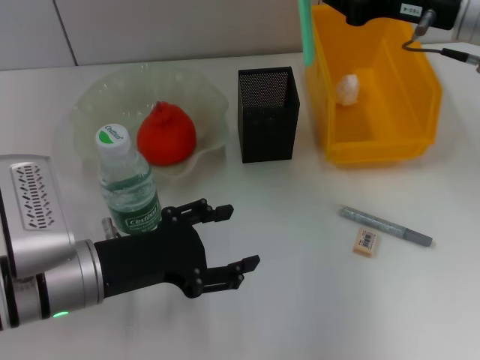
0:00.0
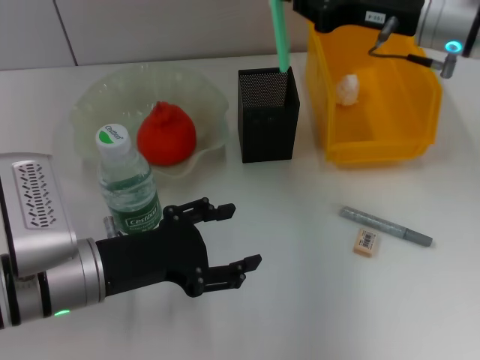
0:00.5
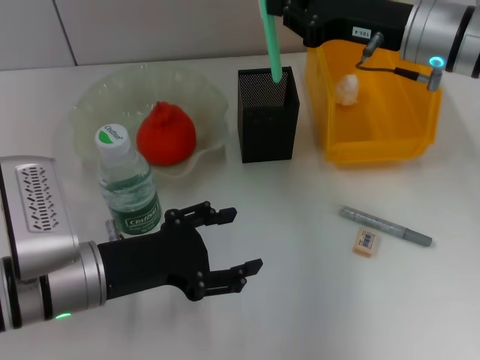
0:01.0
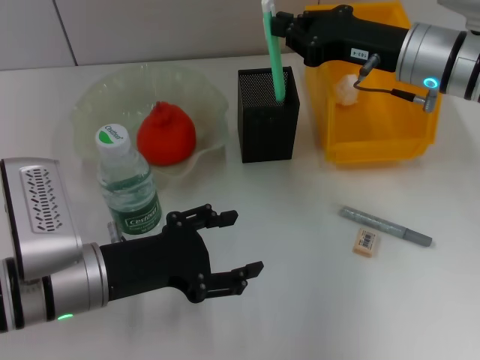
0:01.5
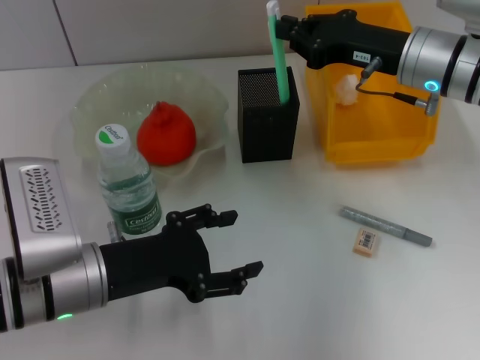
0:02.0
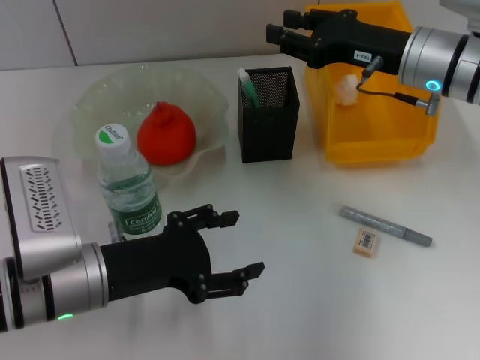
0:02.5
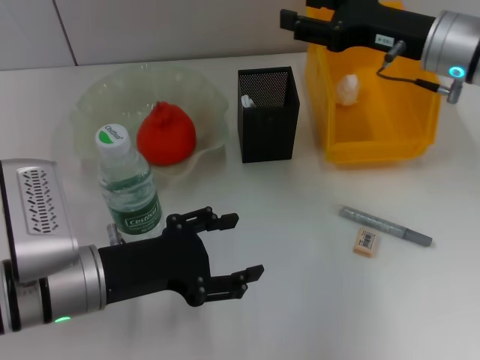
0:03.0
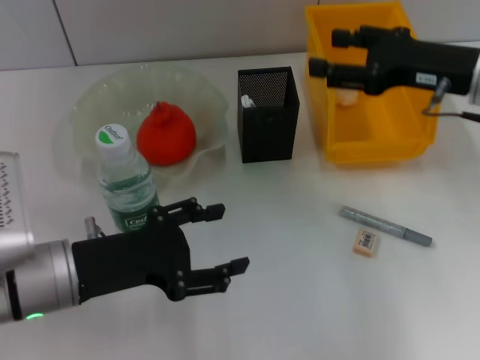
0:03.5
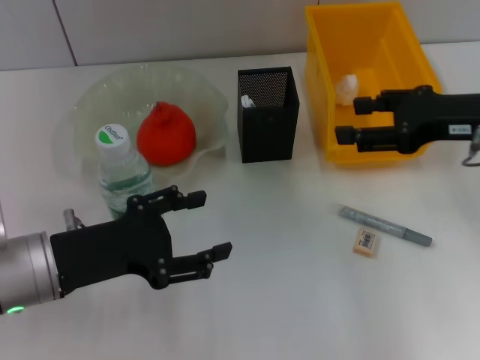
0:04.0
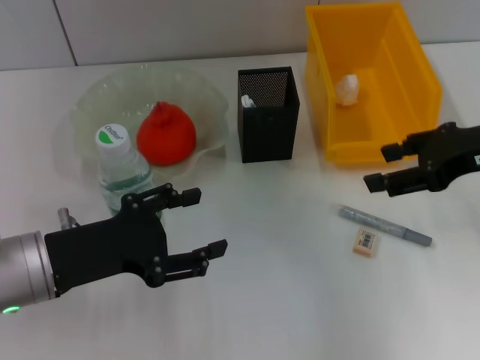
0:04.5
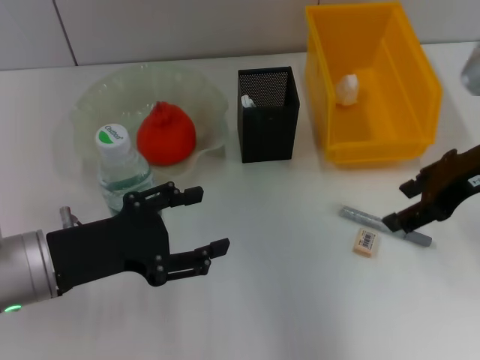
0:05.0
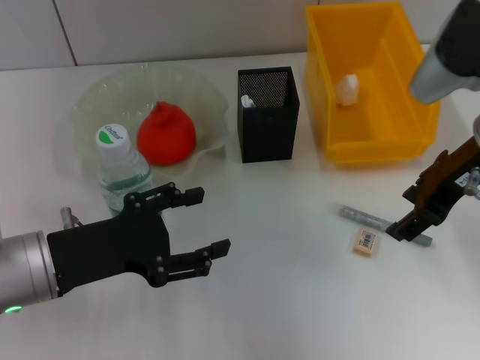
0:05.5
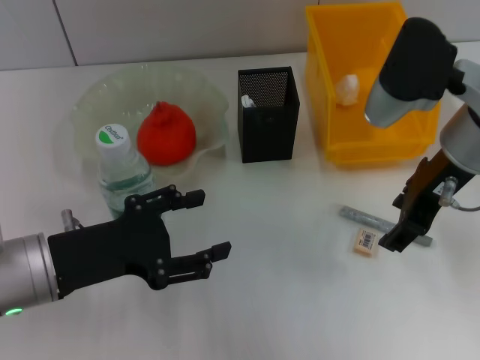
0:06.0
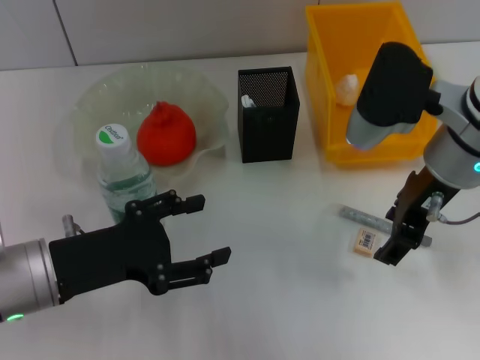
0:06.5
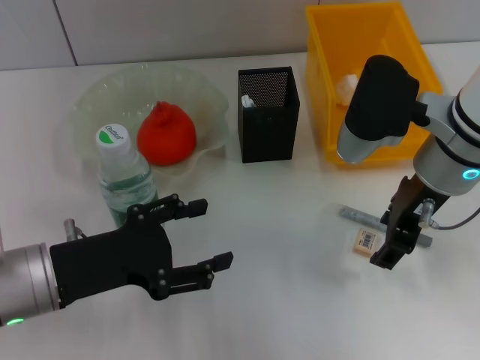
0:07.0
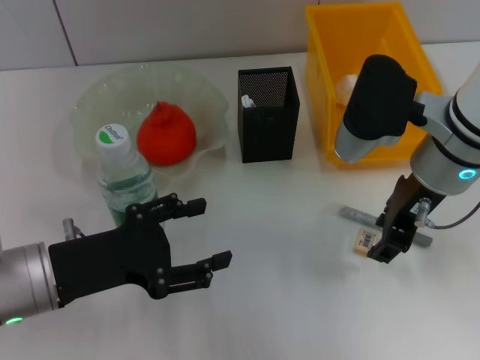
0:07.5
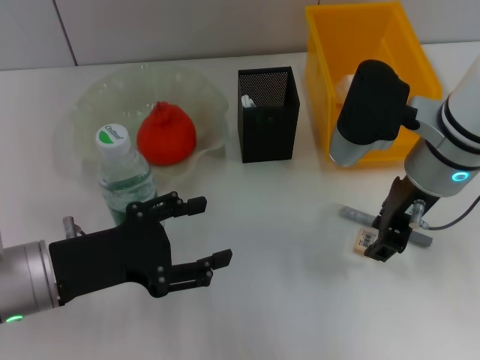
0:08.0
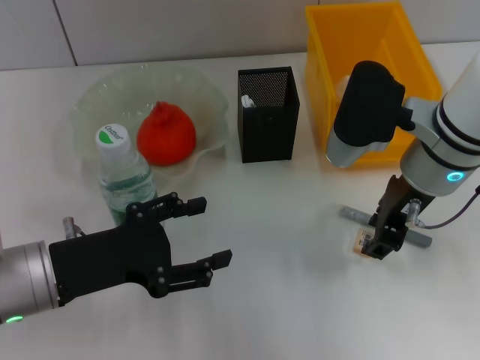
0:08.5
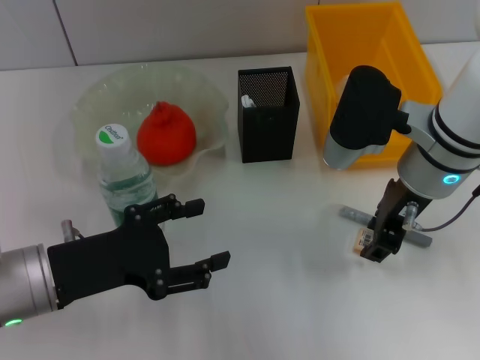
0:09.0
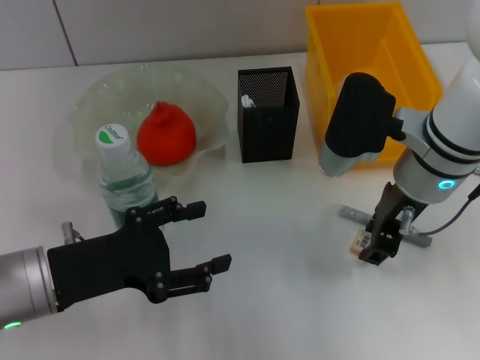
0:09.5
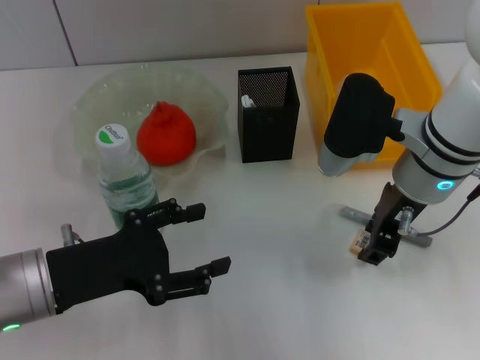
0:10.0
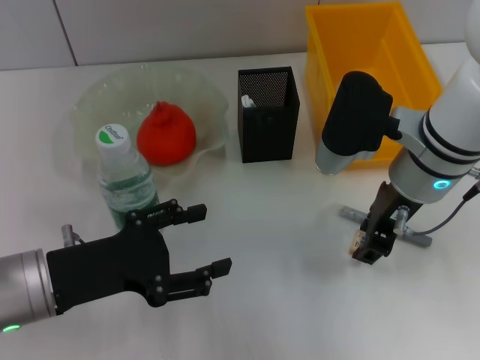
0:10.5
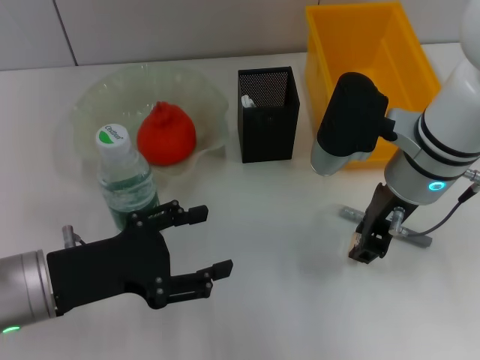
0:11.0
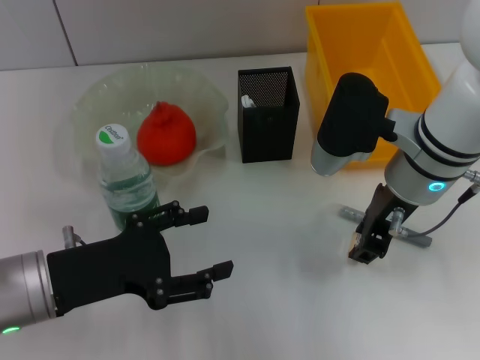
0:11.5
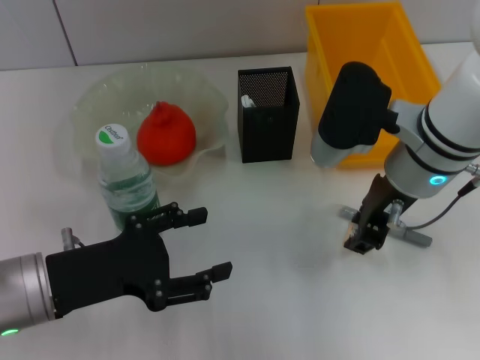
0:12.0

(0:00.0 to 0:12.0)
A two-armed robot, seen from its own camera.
Step, 0:00.0 - 0:02.5: Place the blue utility knife into the pen holder with the right hand.
Step, 0:03.0 - 0:11.0: Grab the eraser with the right hand.
0:00.0 - 0:02.0: The right gripper travels downward by about 5 cm.
0:02.0 - 0:04.0: The right gripper heads backward and to the right, covering about 10 cm, and opens.
0:04.0 - 0:06.0: The right gripper is displaced to the left by approximately 10 cm.
0:06.0 - 0:10.0: The grippers make only small movements.
0:10.0 - 0:12.0: Neither gripper changes place.

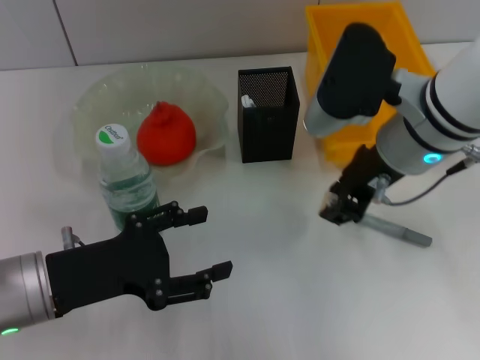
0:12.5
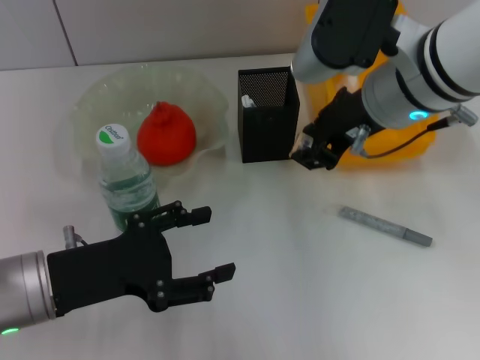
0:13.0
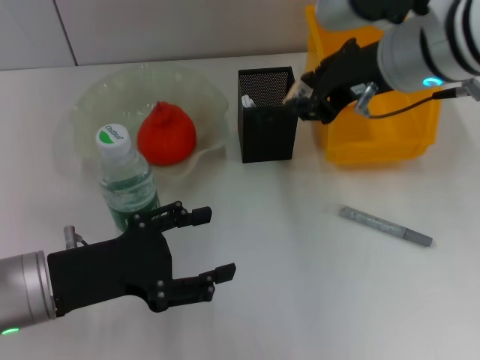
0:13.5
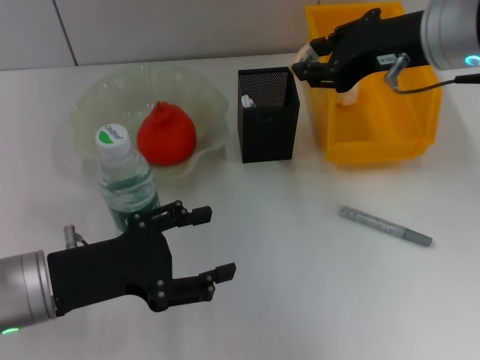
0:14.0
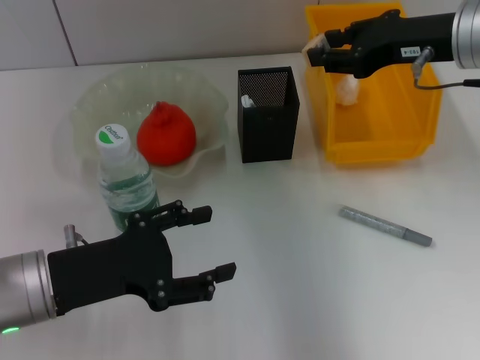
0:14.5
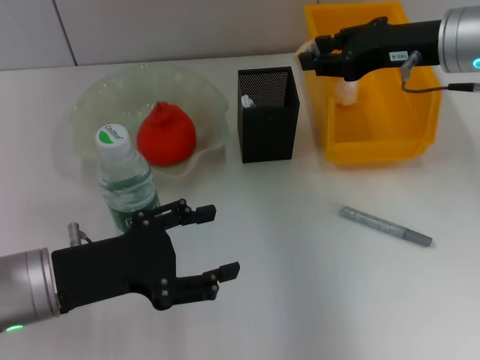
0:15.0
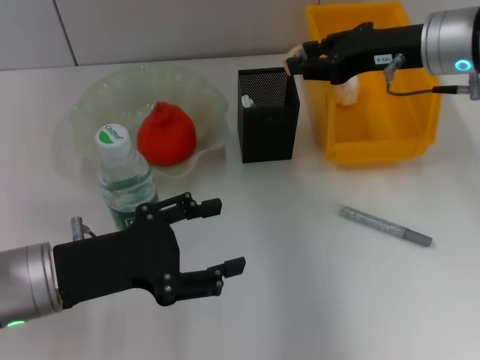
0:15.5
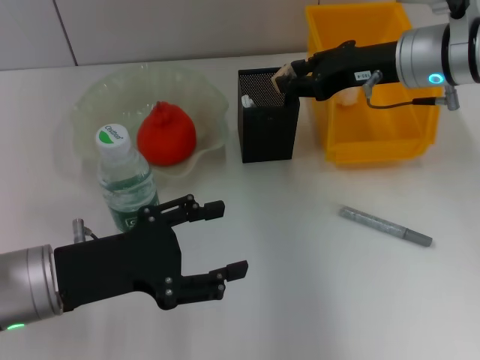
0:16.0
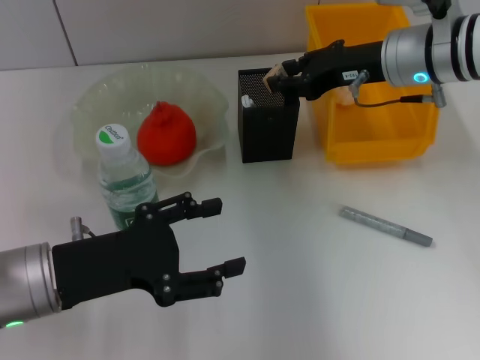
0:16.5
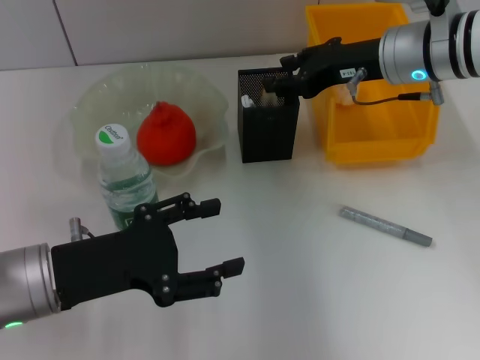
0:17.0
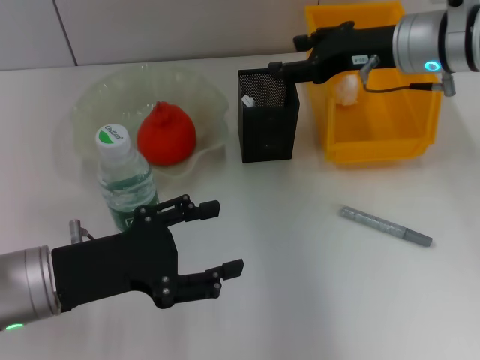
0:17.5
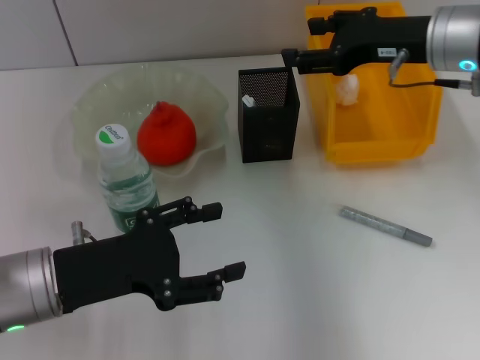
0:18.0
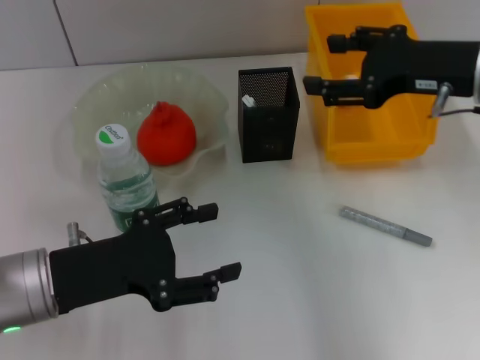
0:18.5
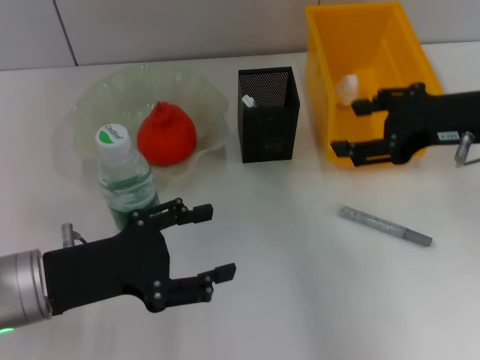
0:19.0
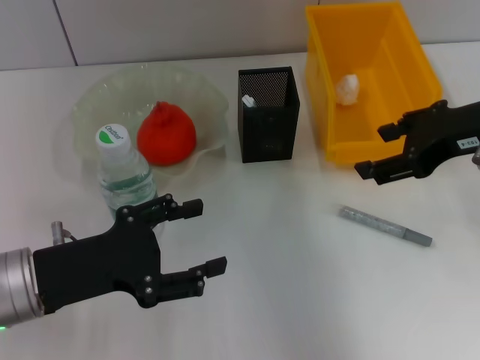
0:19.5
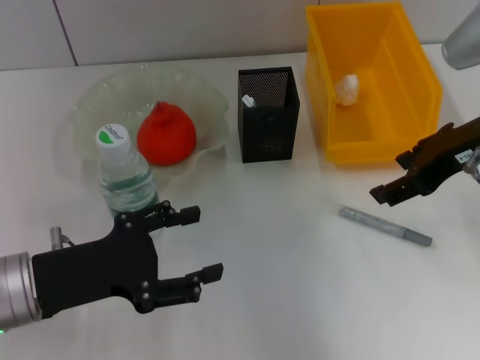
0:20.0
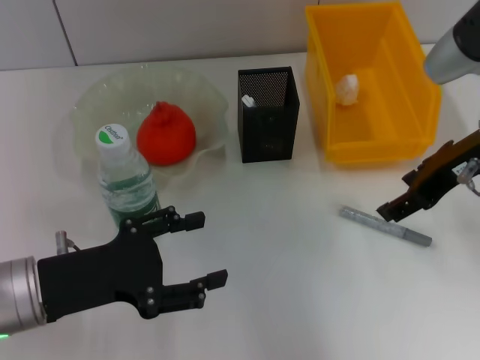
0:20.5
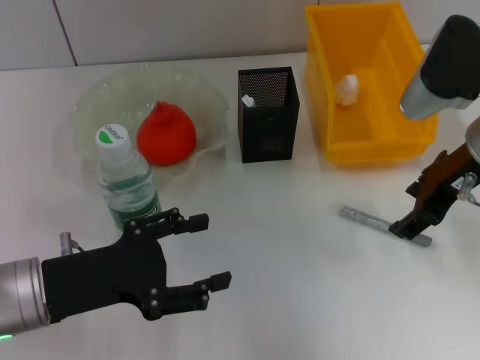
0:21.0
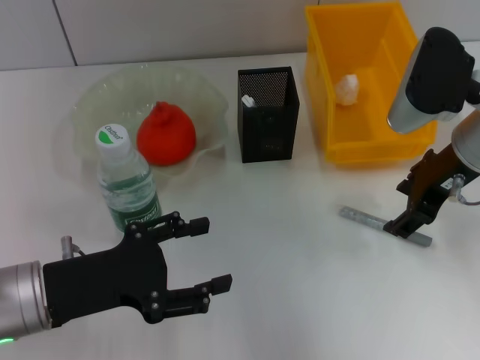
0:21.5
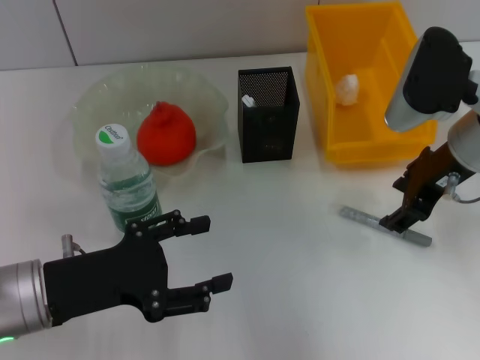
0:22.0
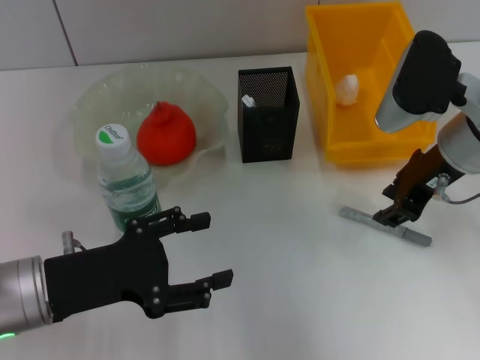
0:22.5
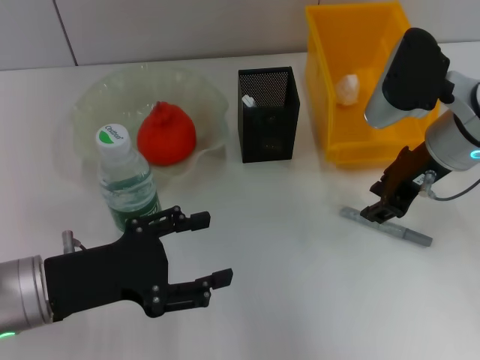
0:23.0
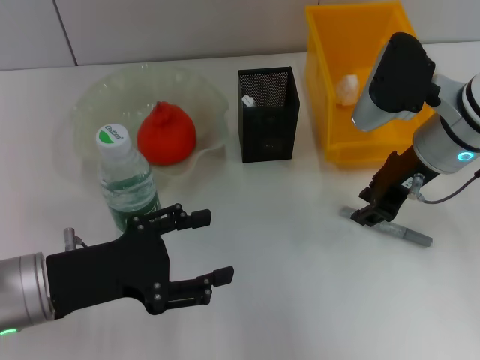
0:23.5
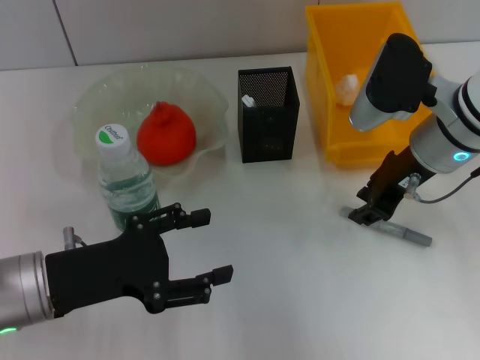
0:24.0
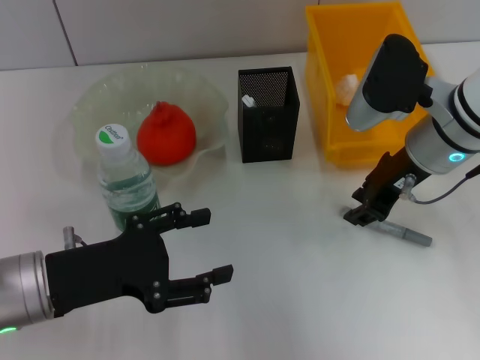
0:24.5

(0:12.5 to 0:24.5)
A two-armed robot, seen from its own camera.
Step, 0:12.5 - 0:17.0: Put the eraser into the pen holder with the right hand.
0:12.5 - 0:14.5: The right gripper is displaced to the right by approximately 10 cm.
0:14.5 - 0:16.5: The right gripper changes place by roughly 5 cm.
0:16.5 - 0:18.5: The right gripper is displaced backward by roughly 10 cm, and opens up.
0:20.5 - 0:22.5: The grippers stay close to where they were, moving slightly.
0:22.5 - 0:24.5: The right gripper closes.

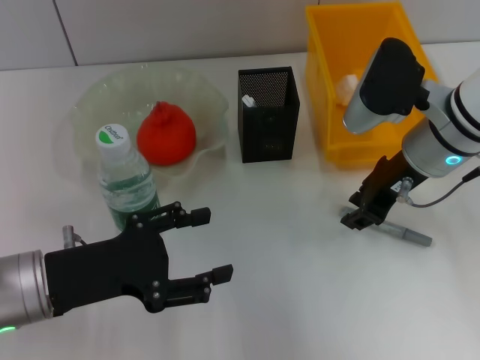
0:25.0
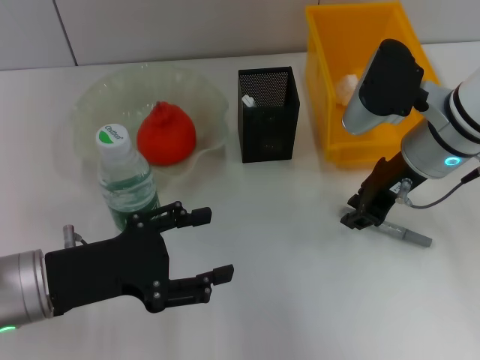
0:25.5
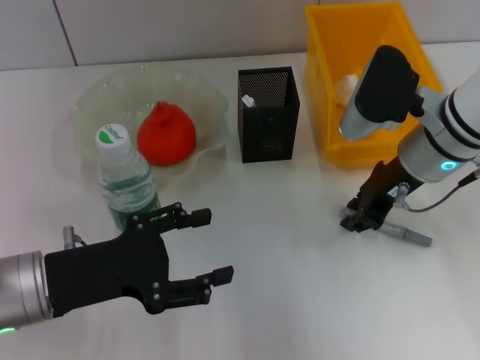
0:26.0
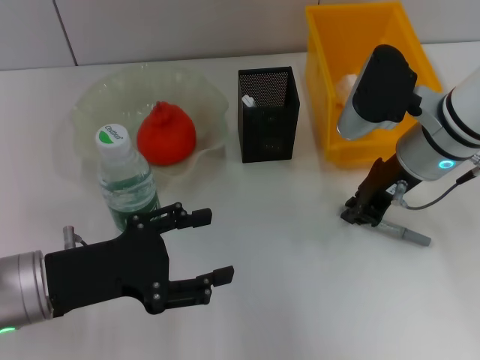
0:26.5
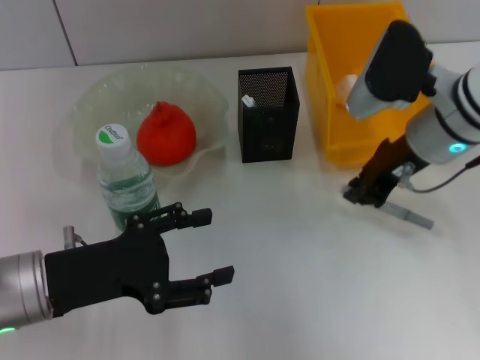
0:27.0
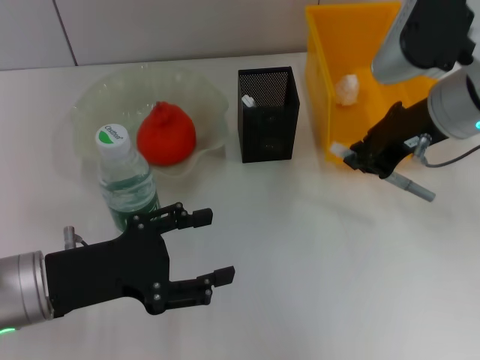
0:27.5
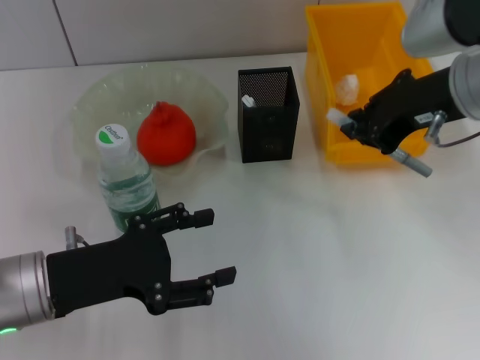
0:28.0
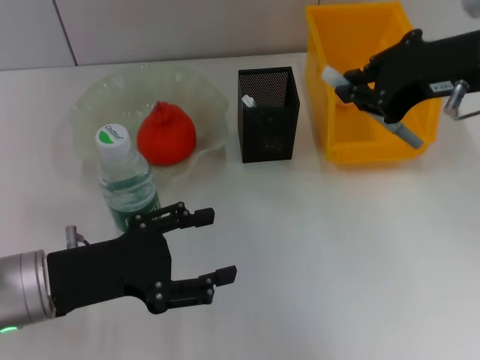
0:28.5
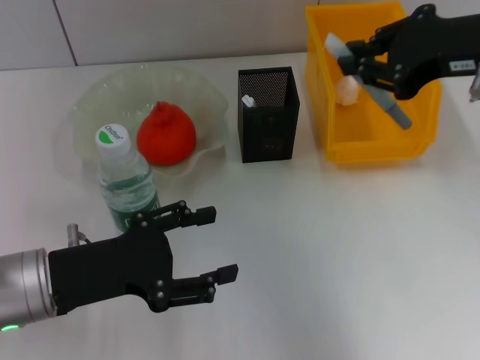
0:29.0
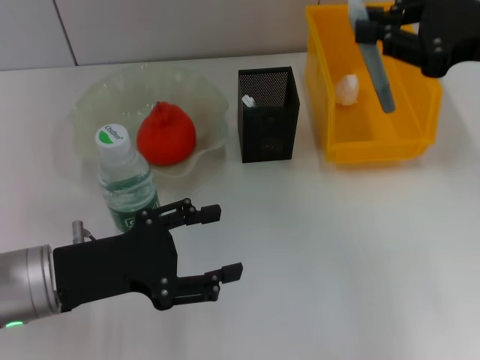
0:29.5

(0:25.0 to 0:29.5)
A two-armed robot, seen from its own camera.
0:25.0 - 0:27.0: The grippers stay close to where they were, moving slightly.
0:27.0 - 0:29.5: The right gripper is displaced to the right and upward by some 10 cm.
